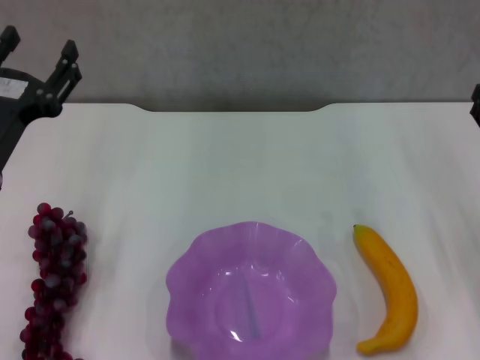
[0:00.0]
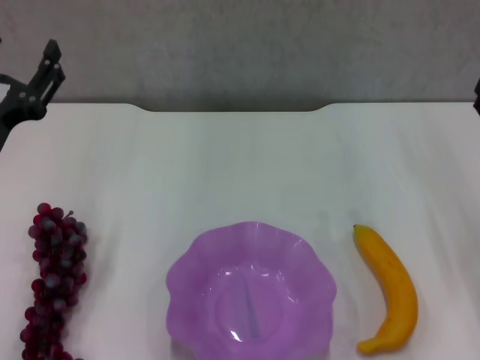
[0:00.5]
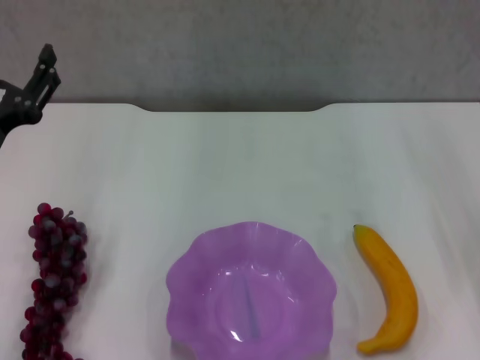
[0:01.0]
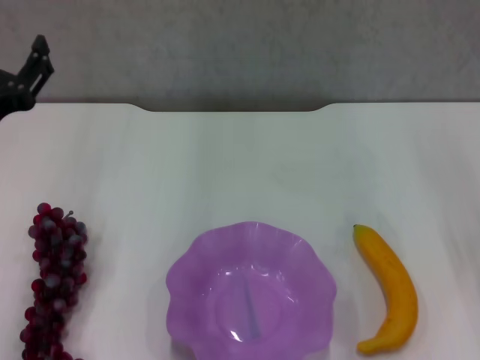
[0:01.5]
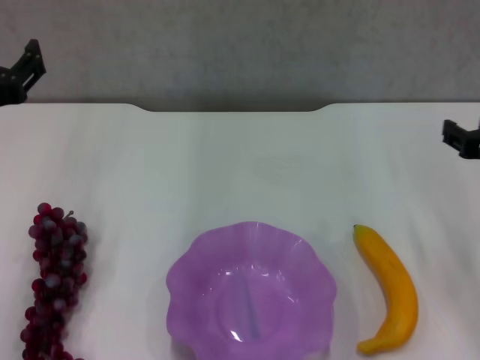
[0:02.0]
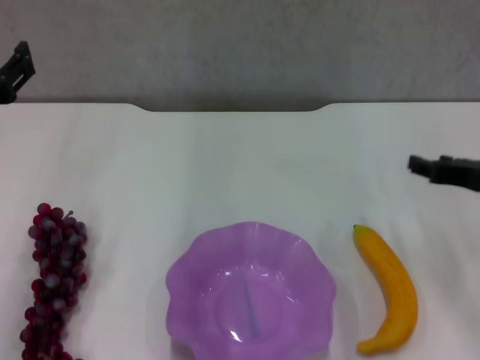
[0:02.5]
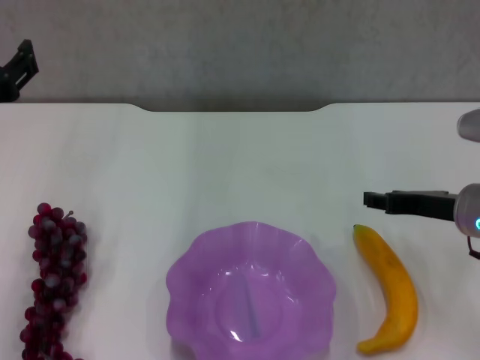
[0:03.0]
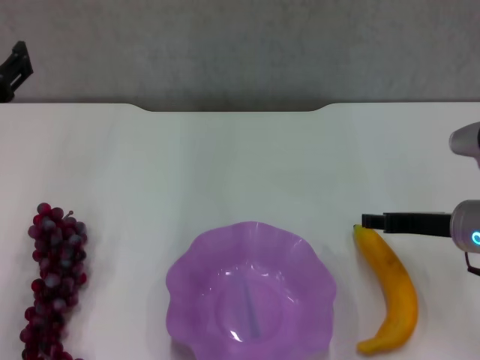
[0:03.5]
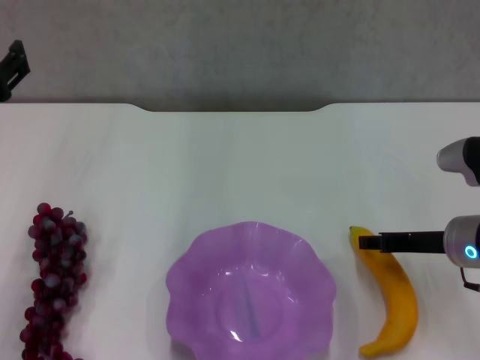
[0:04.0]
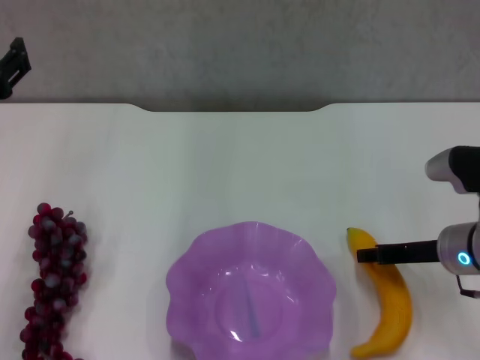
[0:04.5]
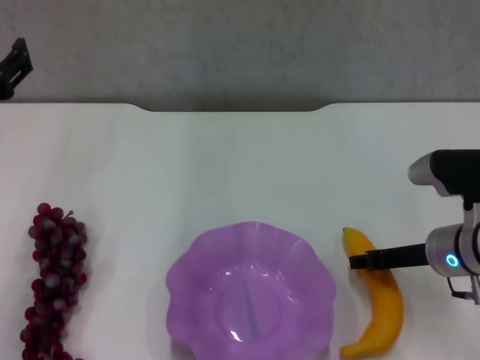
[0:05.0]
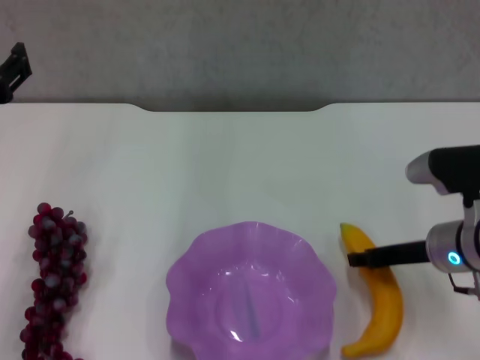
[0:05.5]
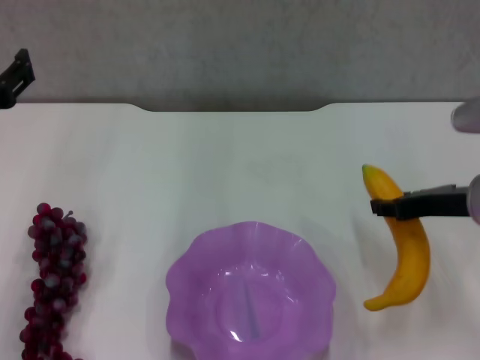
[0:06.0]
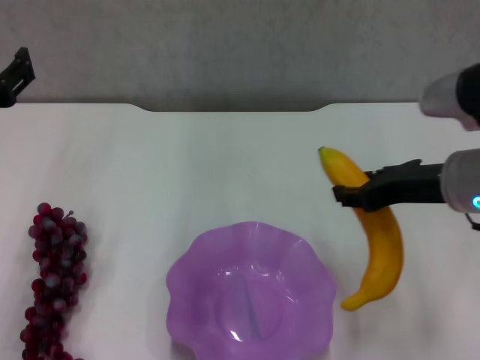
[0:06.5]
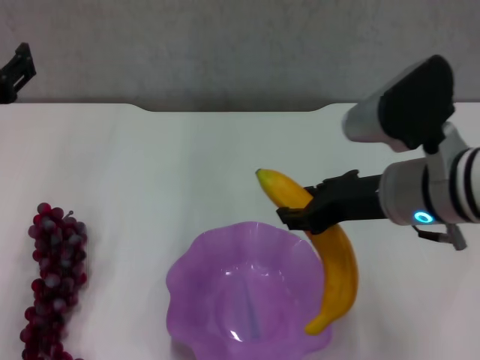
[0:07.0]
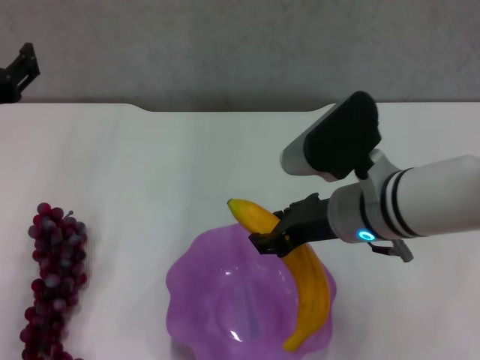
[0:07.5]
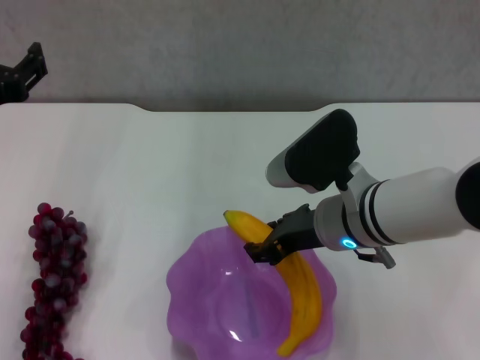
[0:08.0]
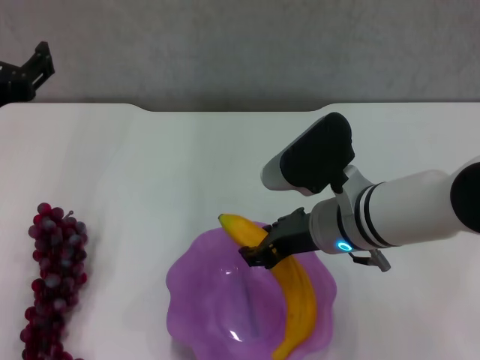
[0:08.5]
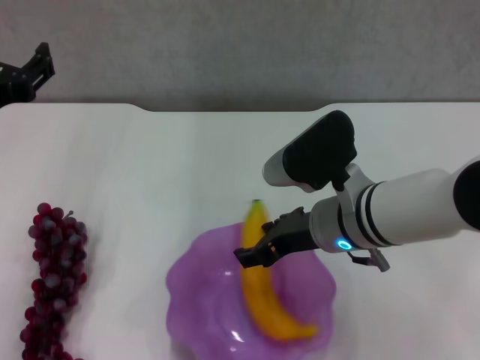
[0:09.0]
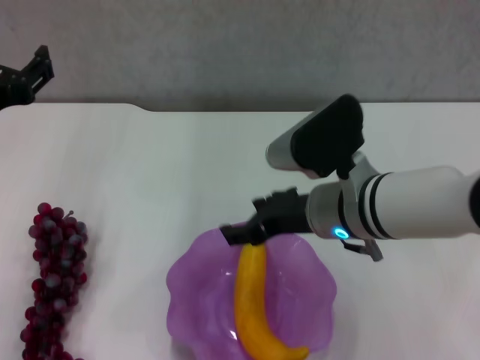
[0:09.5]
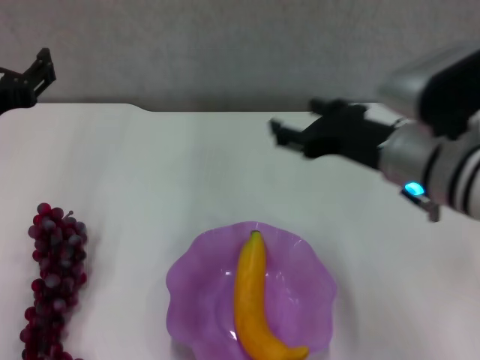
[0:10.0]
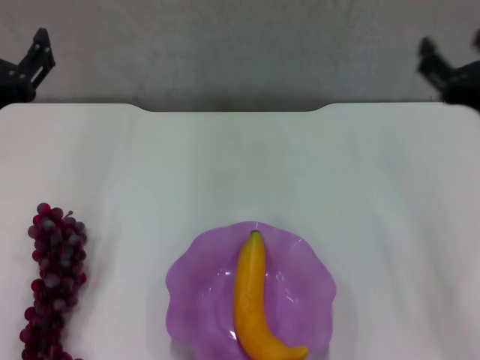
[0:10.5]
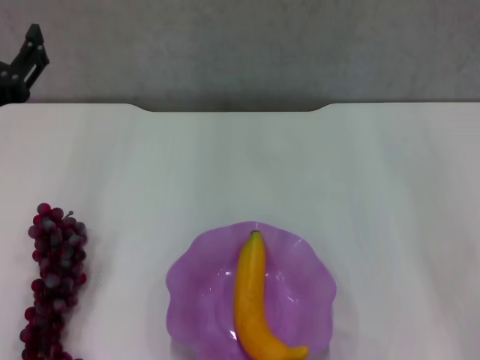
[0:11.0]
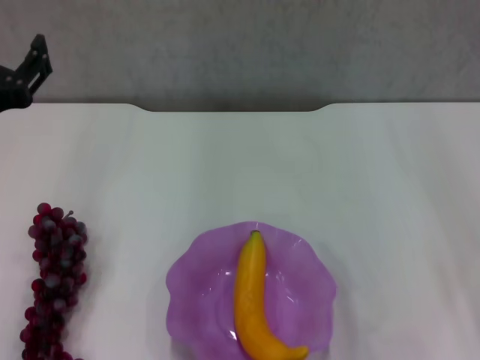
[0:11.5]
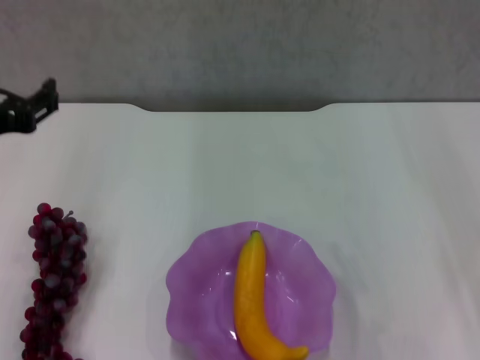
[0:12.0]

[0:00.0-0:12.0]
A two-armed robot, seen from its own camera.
Step, 0:00.0 to 0:04.5: Grasp the banana with right gripper.
Step, 0:05.5 to 0:09.5: Place the banana in the purple plate with right gripper.
0:00.0 to 0:02.0: The left gripper shifts roughly 5 cm upward; the right gripper shifts by about 5 cm.
0:02.0 to 0:04.0: The right gripper shifts roughly 10 cm downward.
0:04.0 to 0:06.0: The right gripper moves upward, roughly 5 cm.
0:06.0 to 0:08.0: The right gripper shifts some 15 cm to the left.
0:08.0 to 0:10.0: The right gripper moves upward and to the right, some 10 cm, and opens.
0:10.0 to 0:12.0: The right gripper goes some 15 cm to the right and backward.

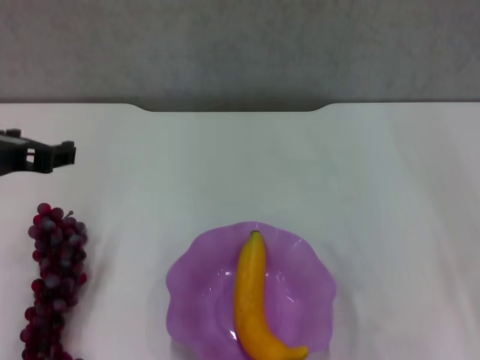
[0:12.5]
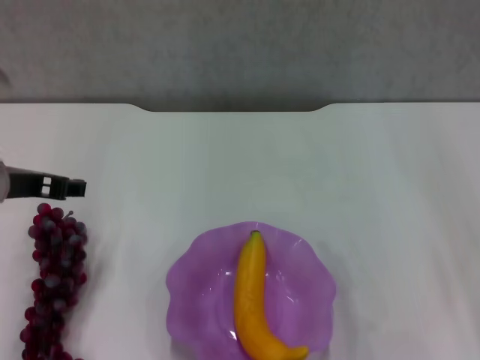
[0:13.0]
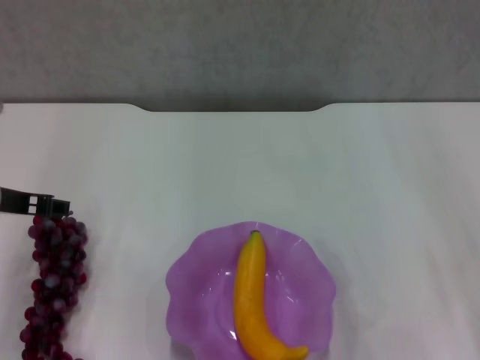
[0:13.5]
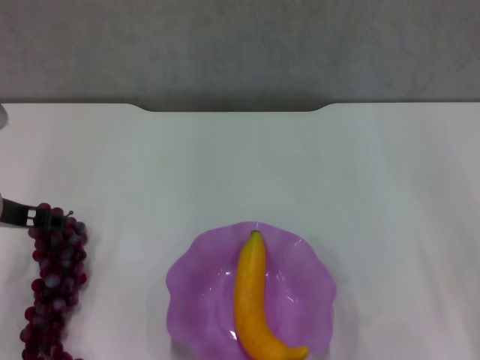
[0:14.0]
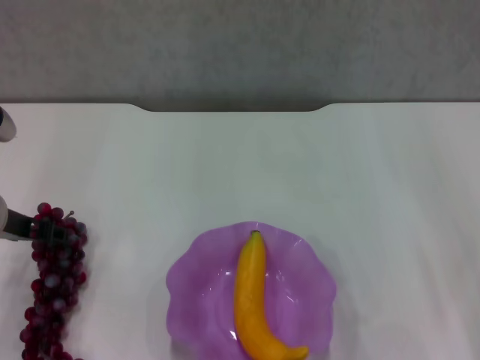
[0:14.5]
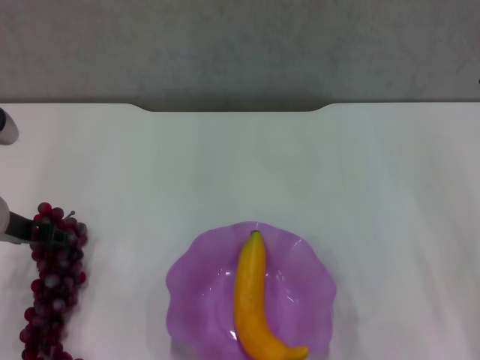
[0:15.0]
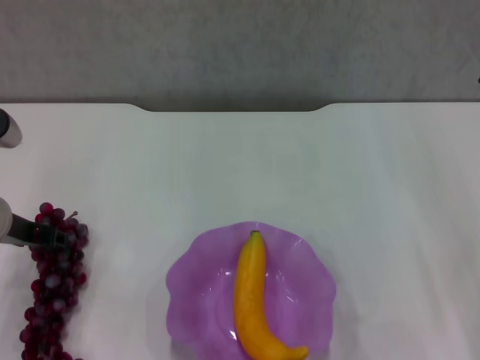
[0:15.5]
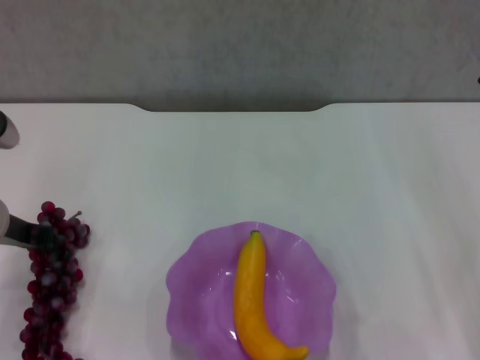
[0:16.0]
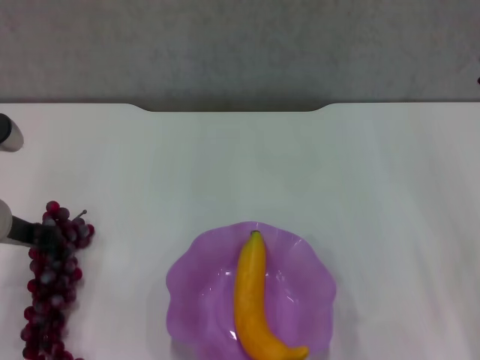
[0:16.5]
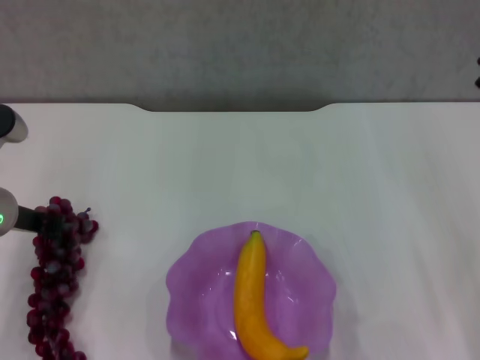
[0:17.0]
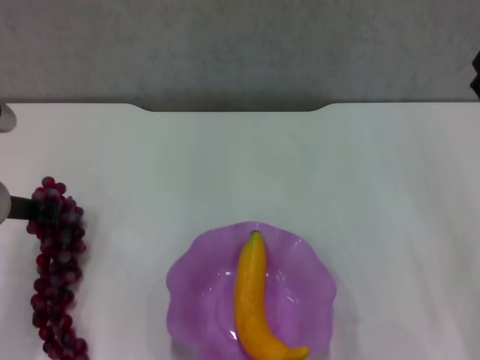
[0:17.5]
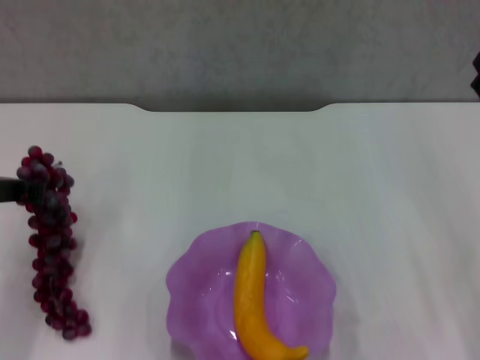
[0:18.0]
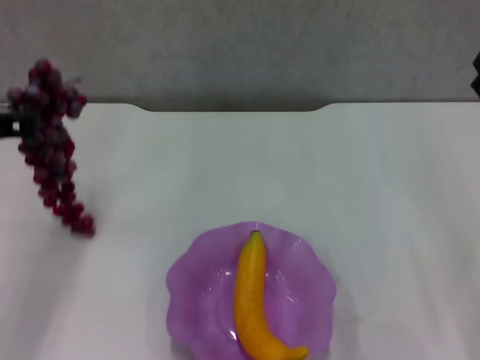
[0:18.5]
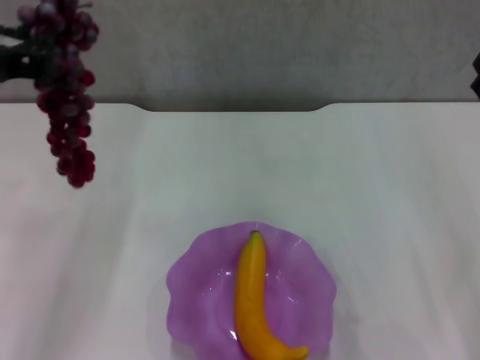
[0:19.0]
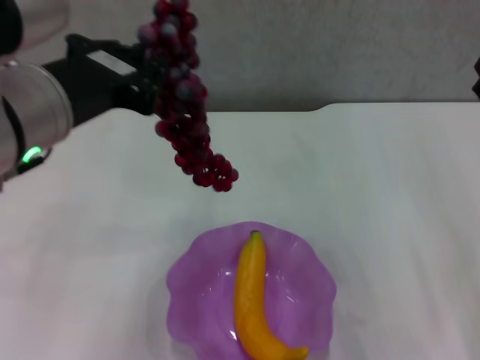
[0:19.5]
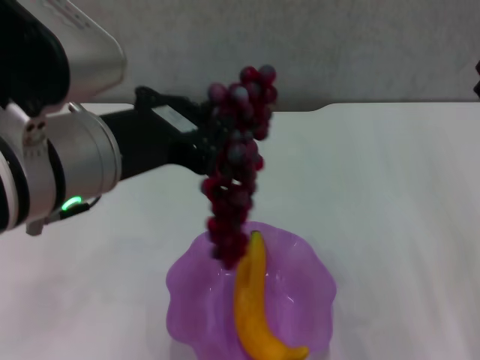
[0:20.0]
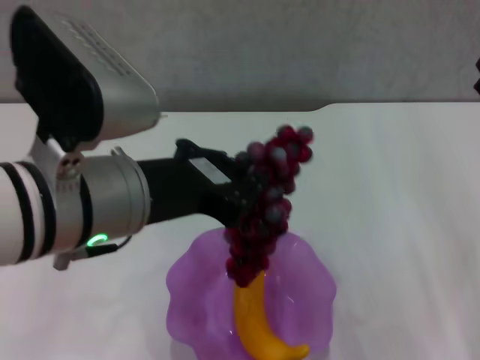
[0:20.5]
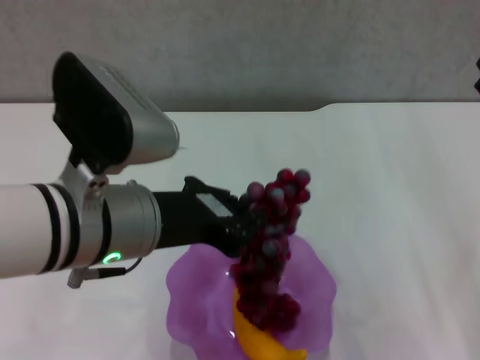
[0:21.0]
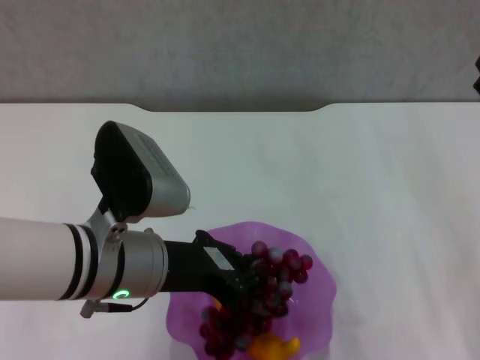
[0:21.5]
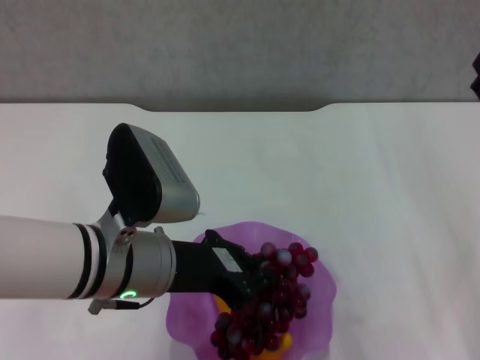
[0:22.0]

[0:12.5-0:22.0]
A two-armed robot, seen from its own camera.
Step, 0:12.5 to 0:16.0: Grasp the grape with left gripper.
0:12.5 to 0:14.5: The left gripper moves downward and forward, approximately 10 cm.
0:14.5 to 0:16.5: The left gripper closes.
0:16.5 to 0:18.0: The grippers make only small movements.
0:18.0 to 0:20.0: The left gripper heads to the right, upward and backward, covering roughly 20 cm.
0:20.0 to 0:22.0: The left gripper shifts some 10 cm downward.

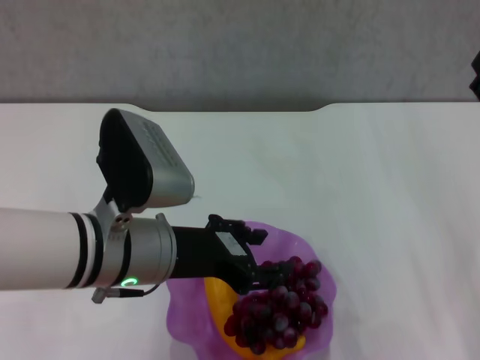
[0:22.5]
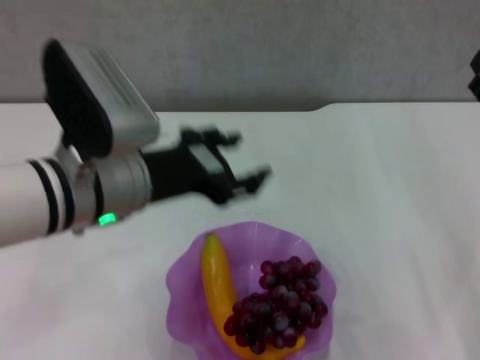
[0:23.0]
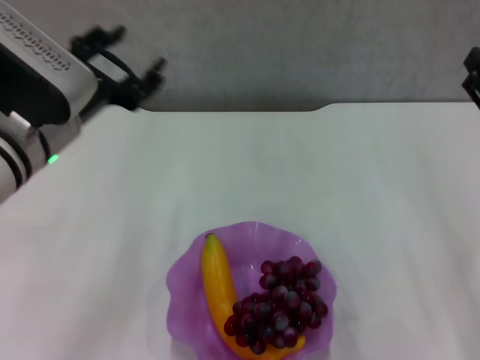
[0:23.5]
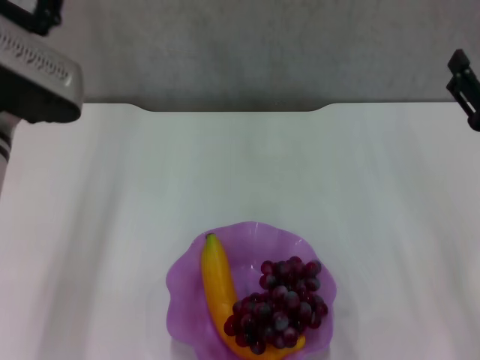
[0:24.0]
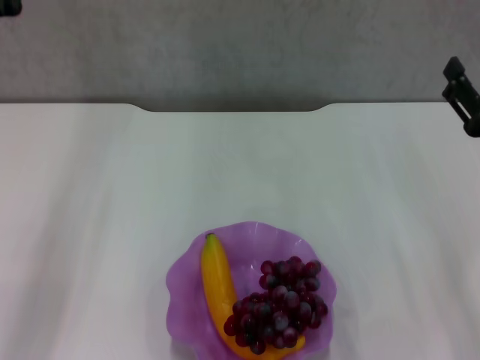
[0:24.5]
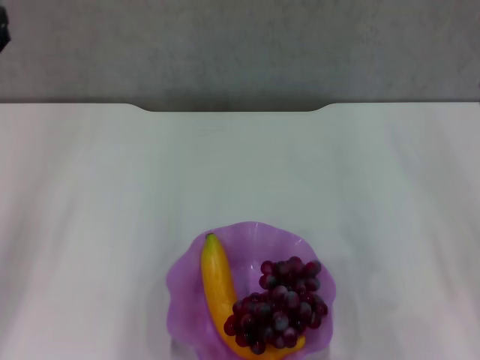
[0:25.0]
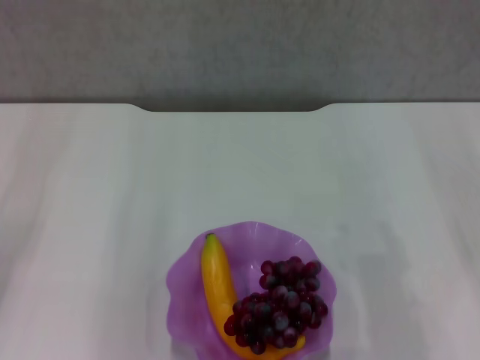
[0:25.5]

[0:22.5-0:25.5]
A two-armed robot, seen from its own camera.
0:22.5 to 0:24.0: The left gripper travels to the left and forward by approximately 10 cm, and opens.
0:24.0 to 0:25.5: The right gripper travels to the right by some 5 cm; the left gripper is displaced to the left by some 10 cm.
